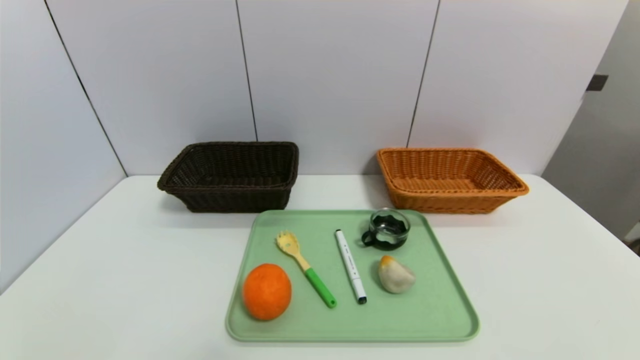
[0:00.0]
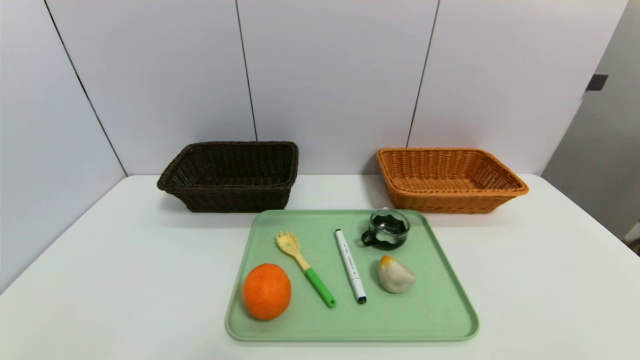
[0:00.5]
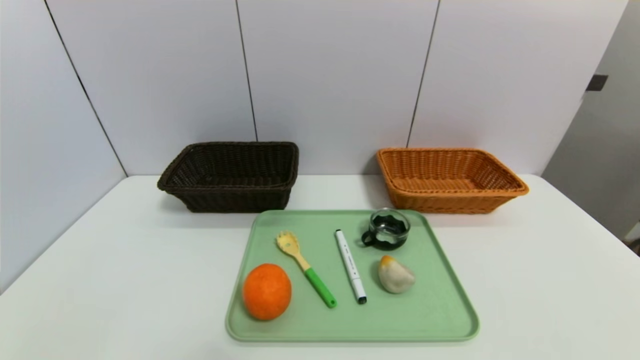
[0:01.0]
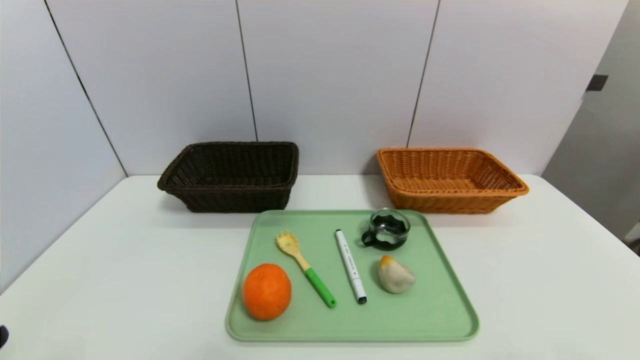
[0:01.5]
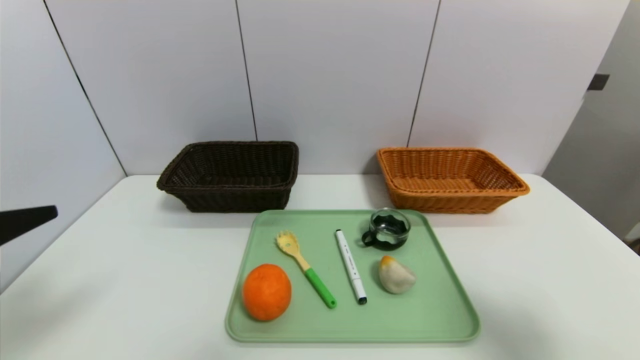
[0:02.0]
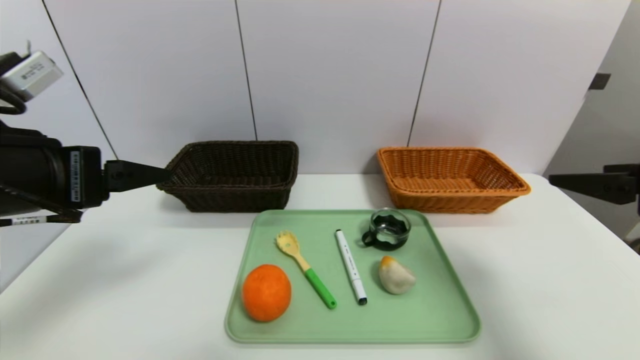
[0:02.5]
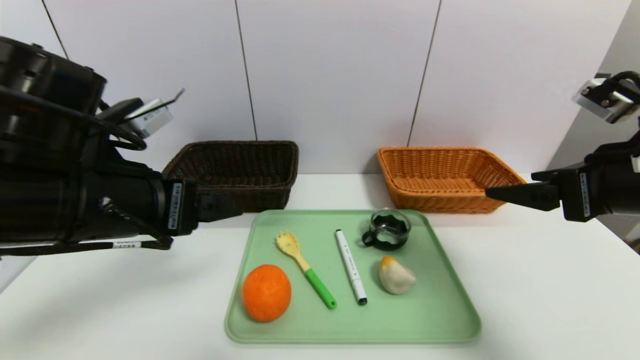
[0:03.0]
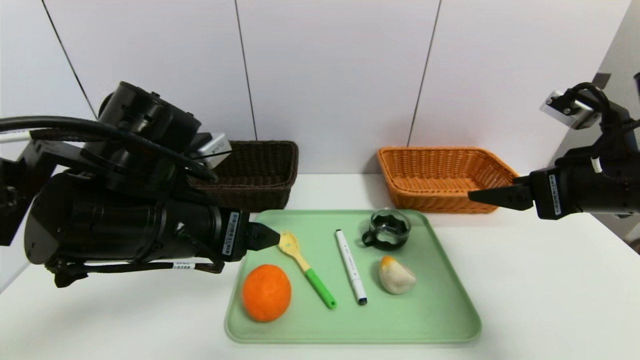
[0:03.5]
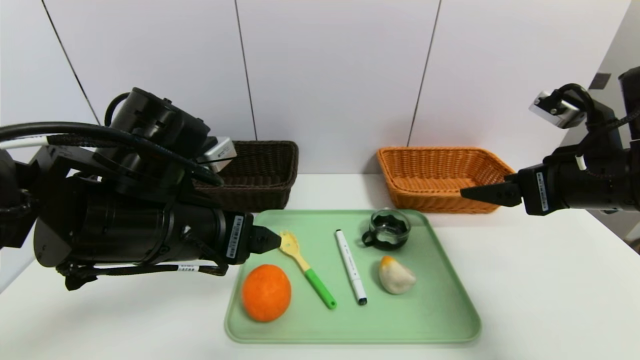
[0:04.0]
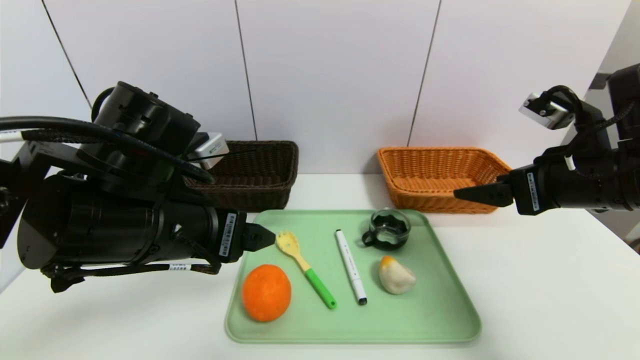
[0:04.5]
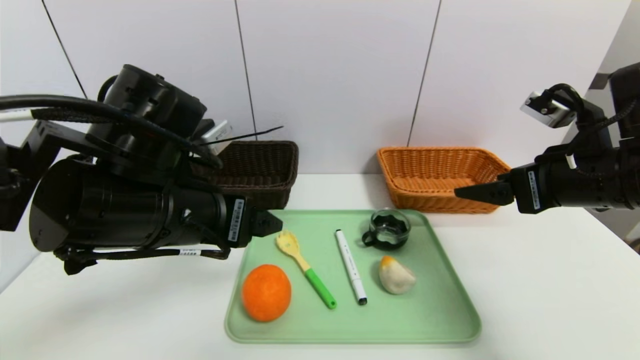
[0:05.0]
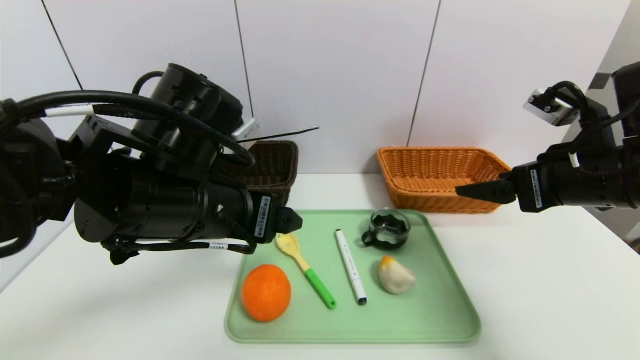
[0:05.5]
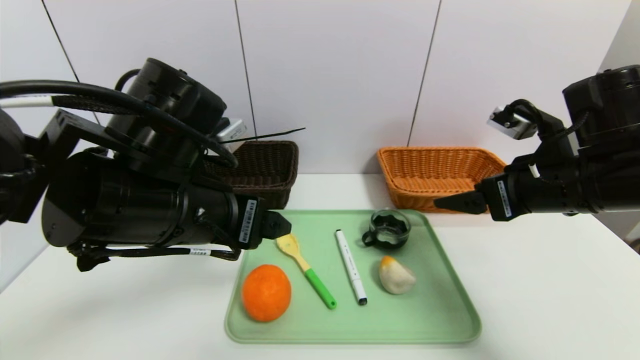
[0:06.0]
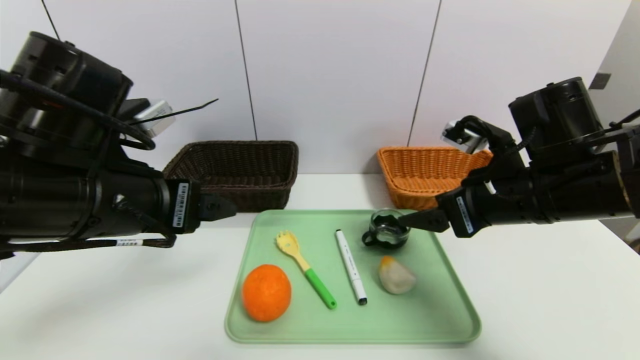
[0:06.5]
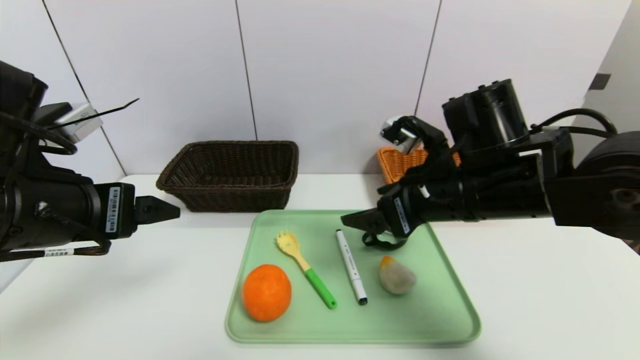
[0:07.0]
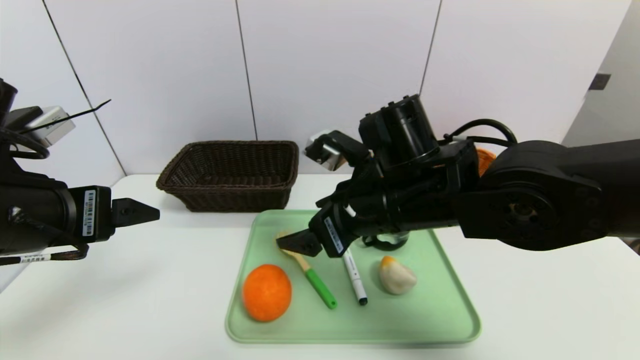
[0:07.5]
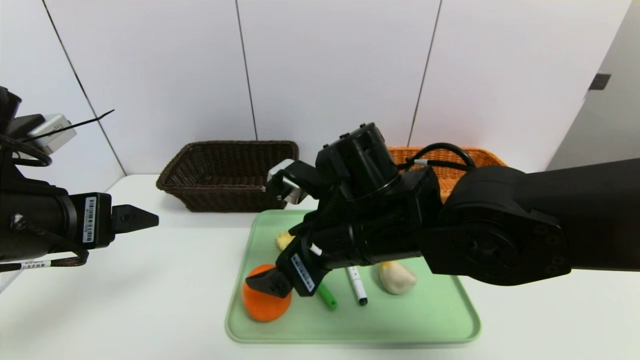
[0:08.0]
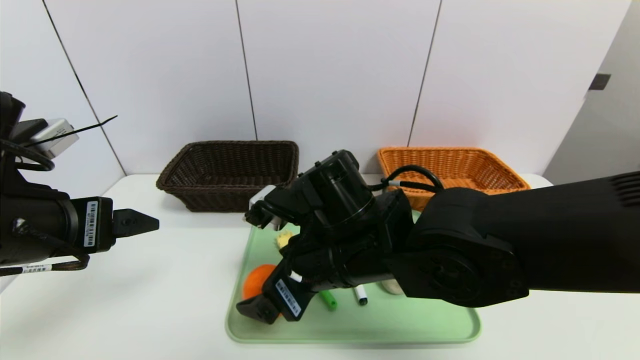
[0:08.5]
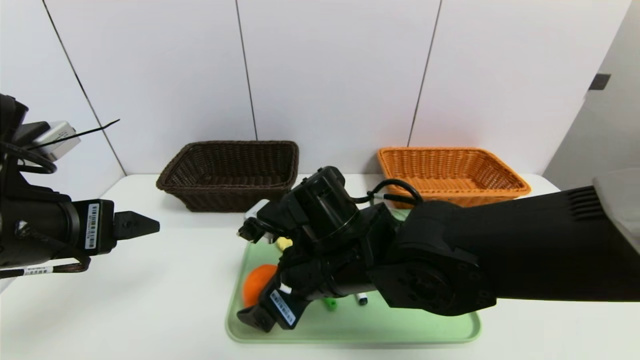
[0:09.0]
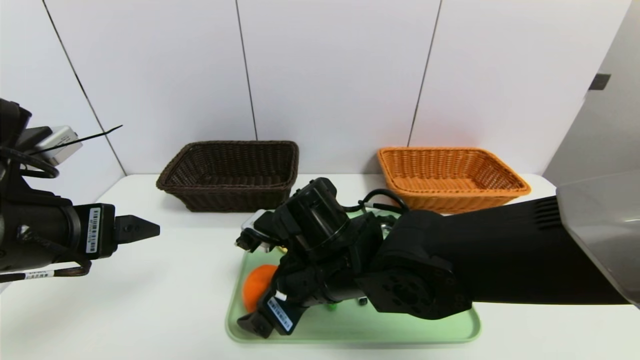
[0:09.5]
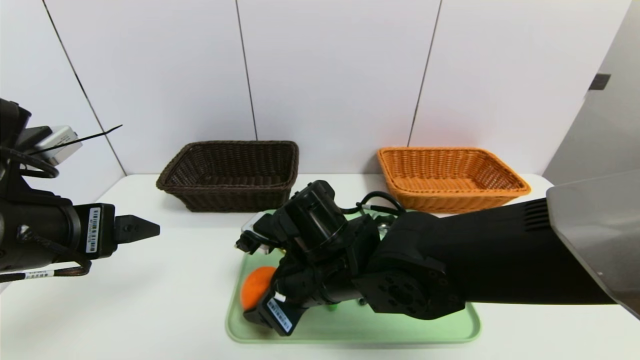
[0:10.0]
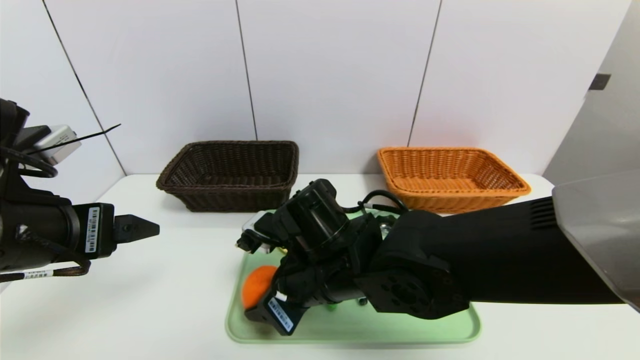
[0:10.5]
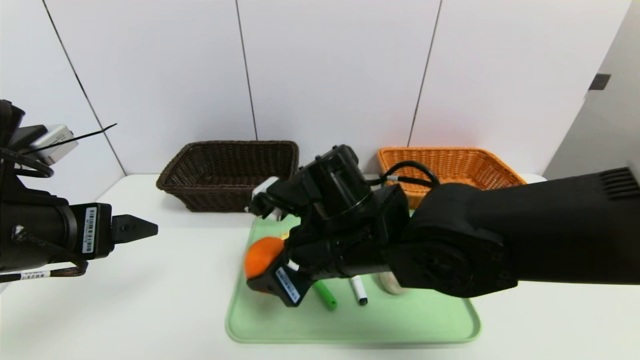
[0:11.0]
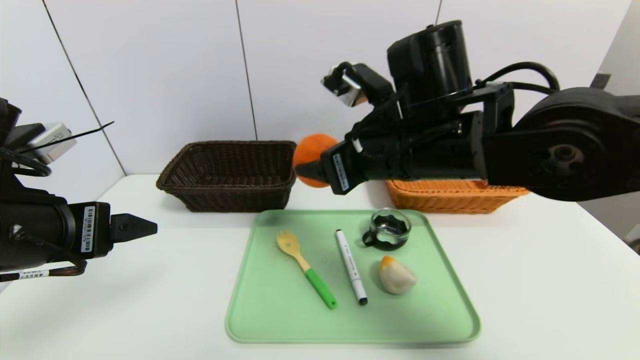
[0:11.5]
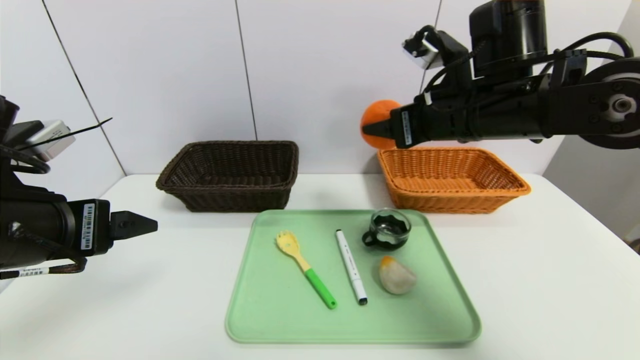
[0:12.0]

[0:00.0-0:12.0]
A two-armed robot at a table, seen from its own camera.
Task of the whole recording: place the food in the right basket with the right gripper, and place the non food items in the left basket with the left gripper.
0:00.0 to 0:02.0: Both grippers travel together upward and forward, about 25 cm.
0:02.0 to 0:04.0: The left gripper goes approximately 20 cm to the right and forward. The right gripper is displaced forward and to the left by approximately 15 cm.
0:04.0 to 0:06.0: There are only small adjustments of the grippers.
0:06.0 to 0:08.0: The left gripper moves to the left, about 10 cm. Meanwhile the right gripper shifts some 20 cm to the left.
0:08.0 to 0:10.0: The right gripper is displaced downward by approximately 5 cm.
0:10.0 to 0:12.0: The right gripper is displaced to the right, upward and forward by approximately 25 cm.

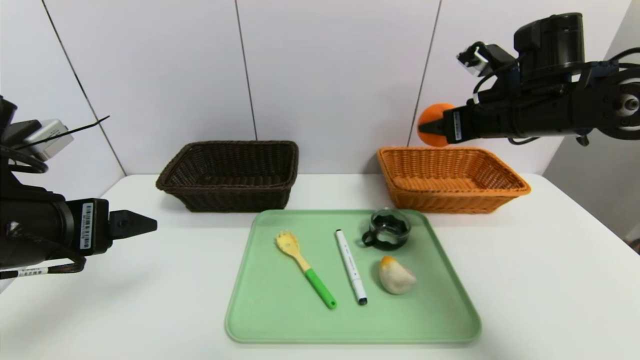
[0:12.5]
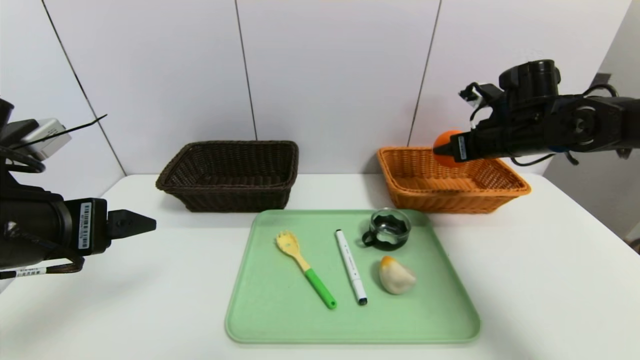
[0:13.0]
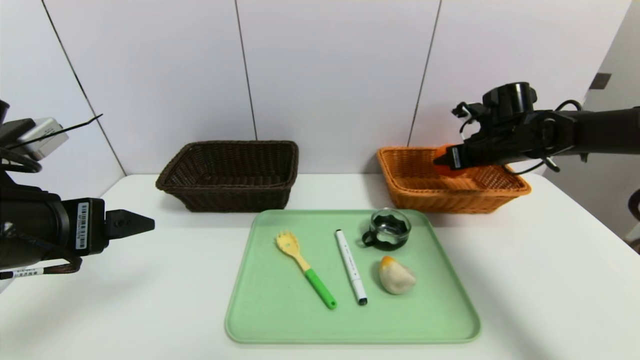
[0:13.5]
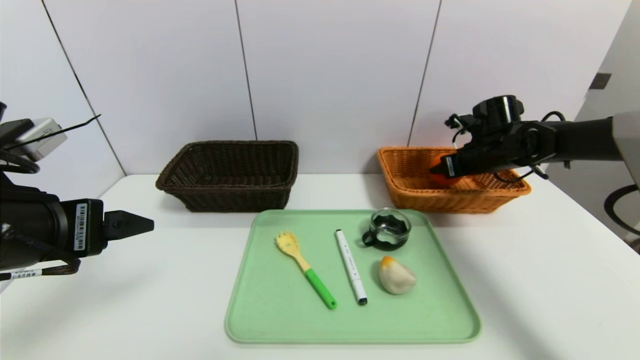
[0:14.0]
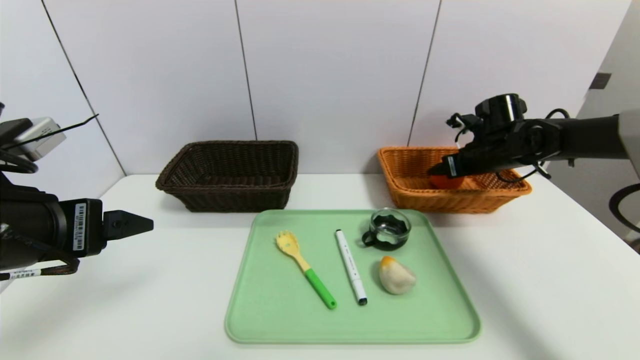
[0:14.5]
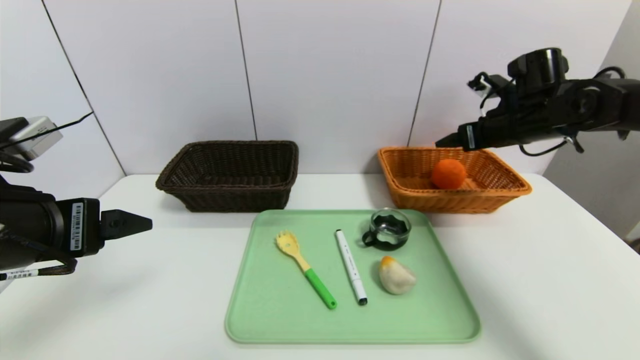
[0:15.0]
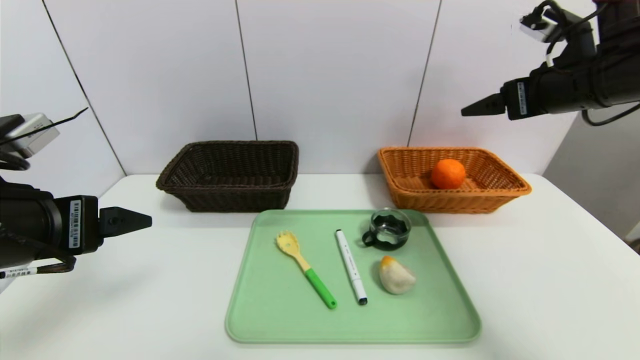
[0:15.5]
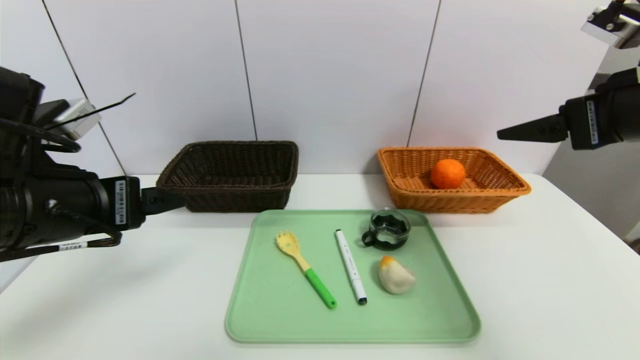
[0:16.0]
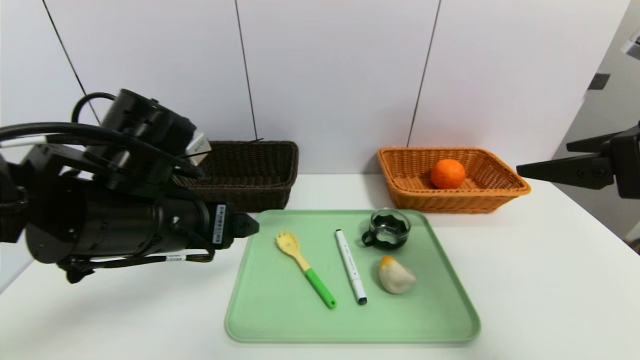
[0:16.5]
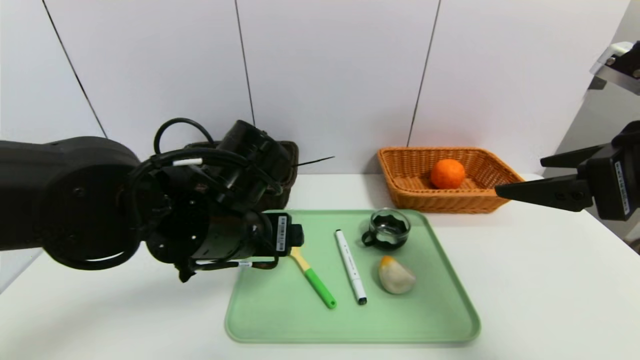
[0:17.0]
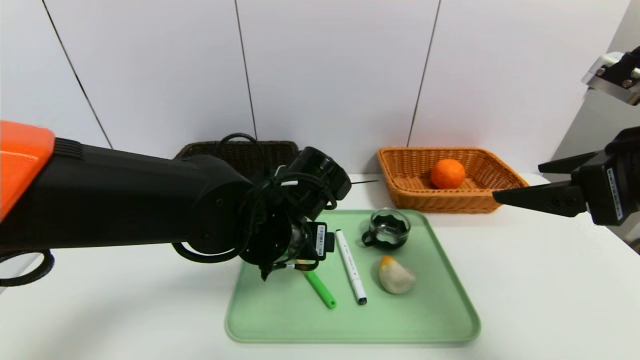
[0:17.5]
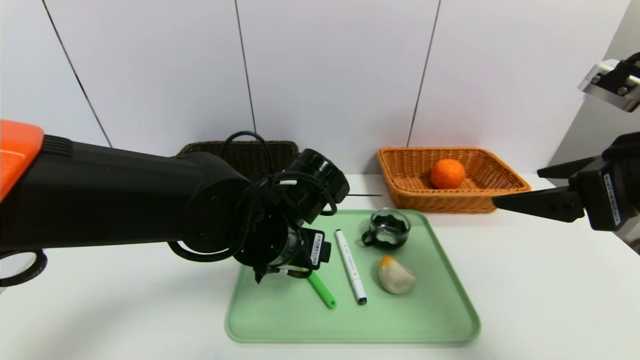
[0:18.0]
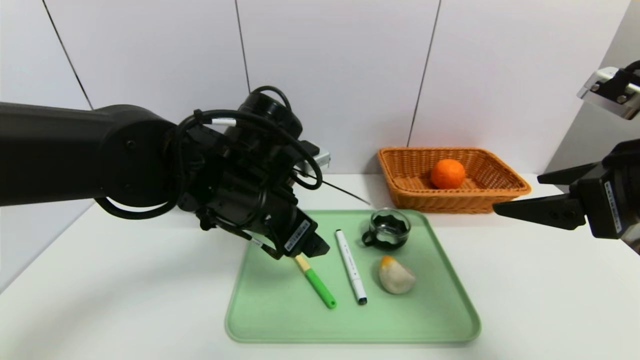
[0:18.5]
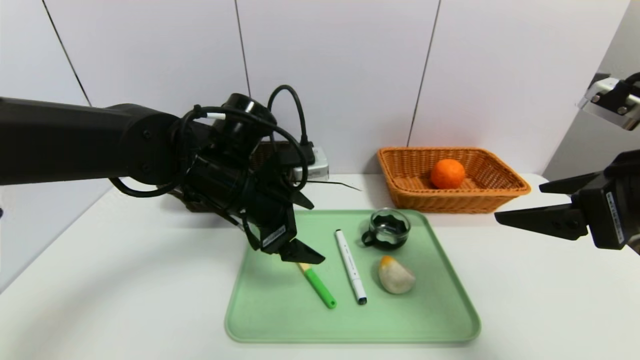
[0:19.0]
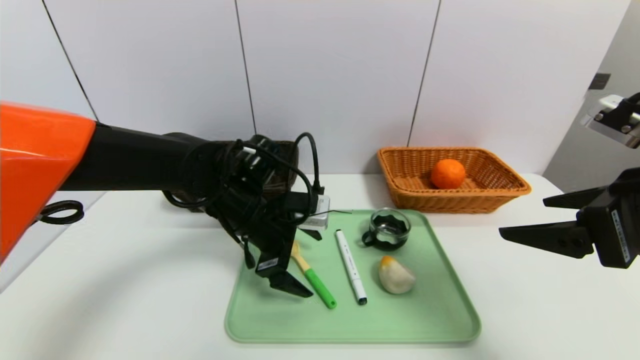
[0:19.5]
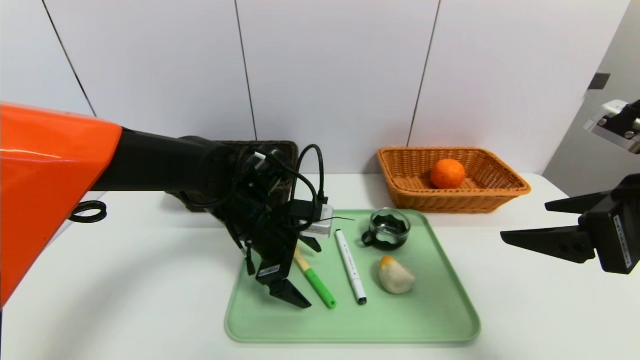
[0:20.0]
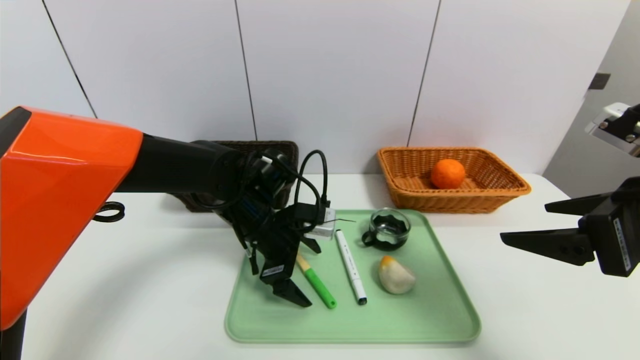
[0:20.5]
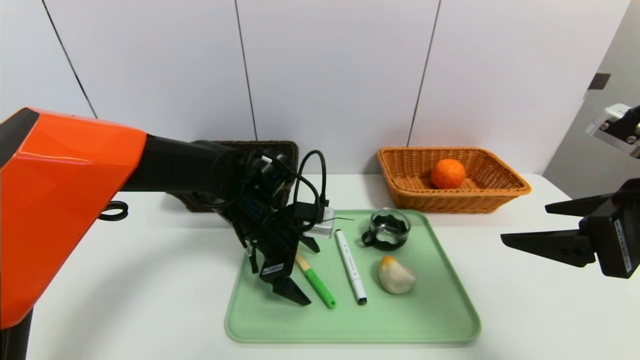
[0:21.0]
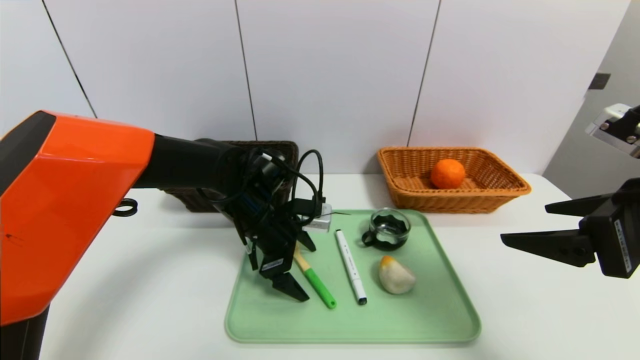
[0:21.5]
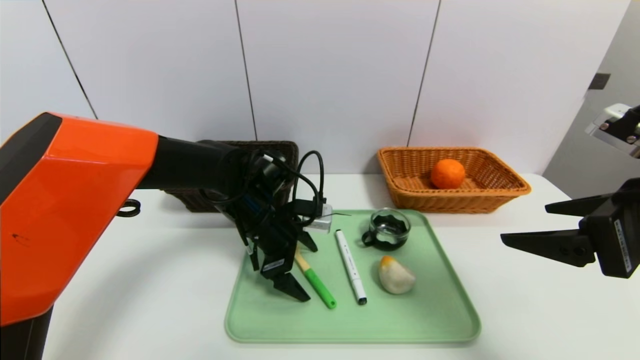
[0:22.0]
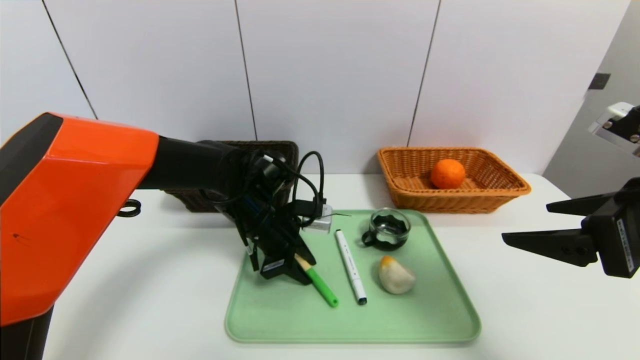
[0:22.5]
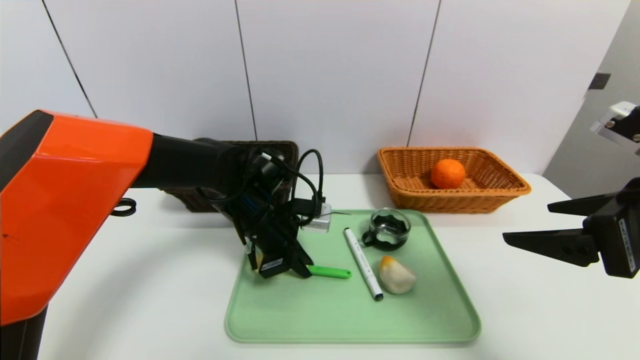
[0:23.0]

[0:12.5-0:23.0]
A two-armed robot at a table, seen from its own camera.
Task of the whole recording: place the food in the right basket with the right gripper, and place the non food items in the left basket with the left gripper.
Step, 0:12.5 to 0:14.5: Grasp the orange and put it in the right basket.
0:12.5 to 0:14.5: The right gripper shifts approximately 15 cm downward, forward and to the right.
0:14.5 to 0:16.5: The left gripper travels to the right and forward by roughly 10 cm. Meanwhile the right gripper goes about 30 cm backward and upward.
0:16.5 to 0:19.0: The left gripper moves forward and to the right, roughly 10 cm.
0:19.0 to 0:21.0: The left gripper travels downward by about 10 cm.
0:21.0 to 0:23.0: The left gripper closes its fingers.
